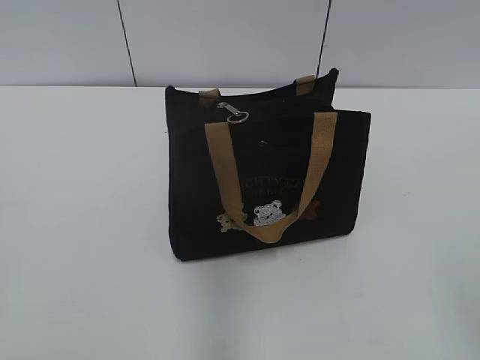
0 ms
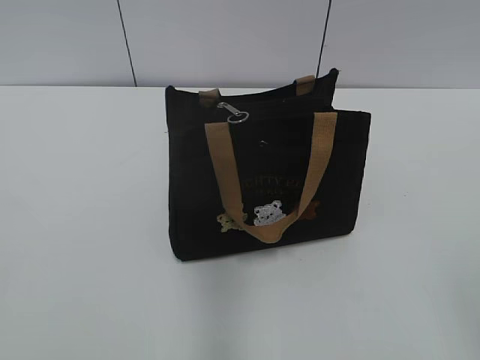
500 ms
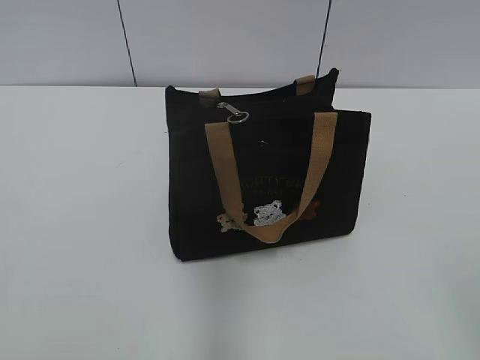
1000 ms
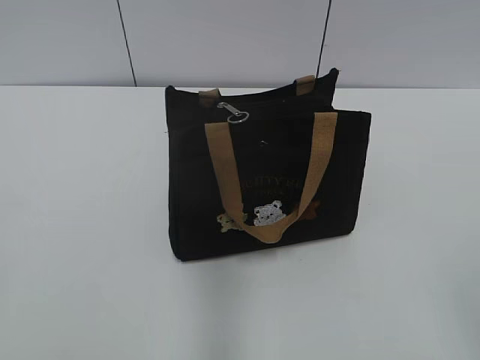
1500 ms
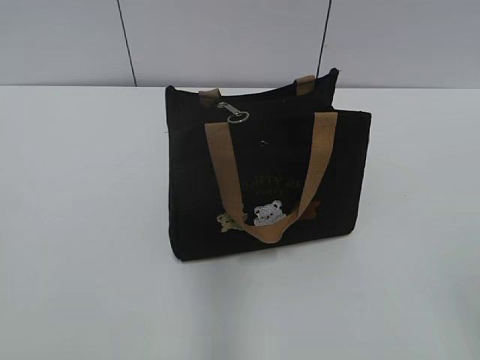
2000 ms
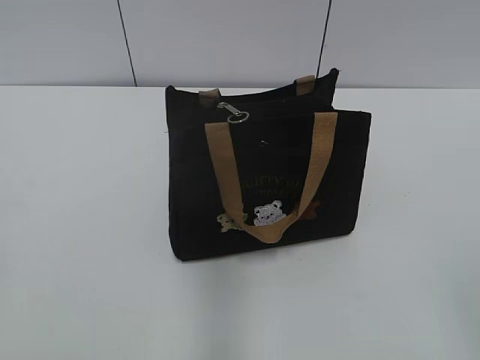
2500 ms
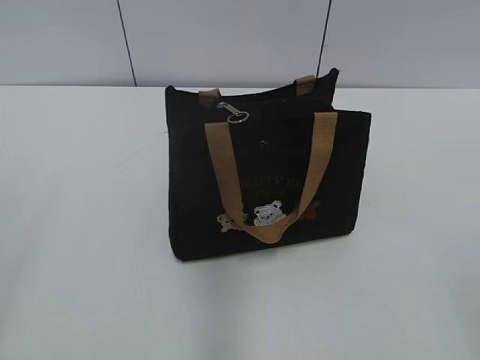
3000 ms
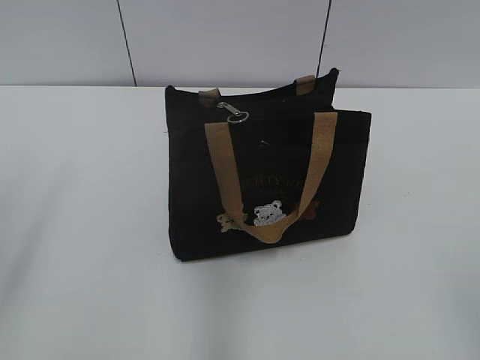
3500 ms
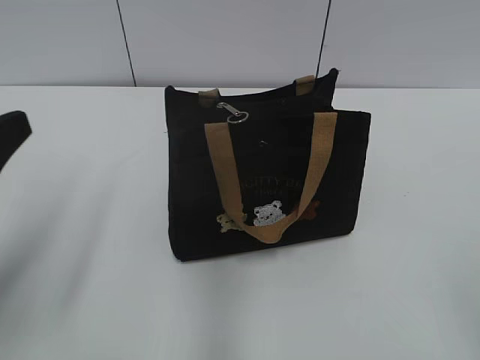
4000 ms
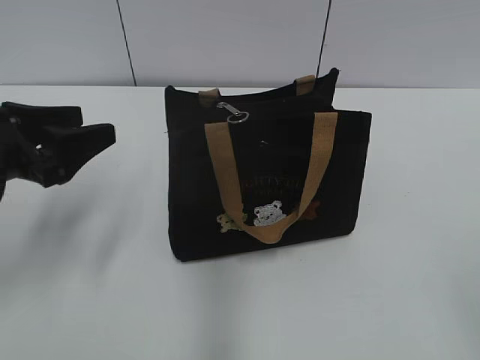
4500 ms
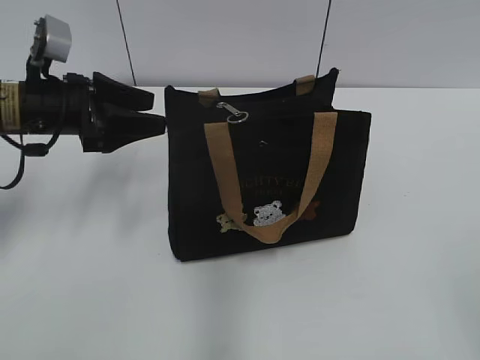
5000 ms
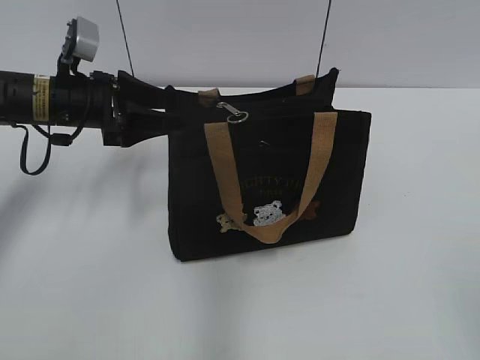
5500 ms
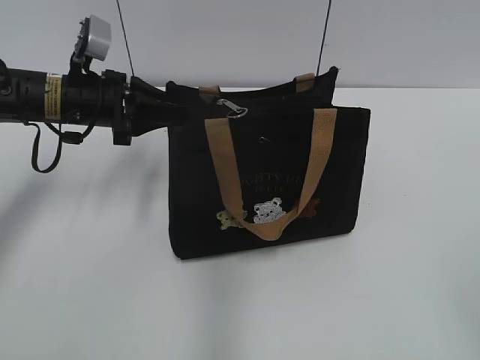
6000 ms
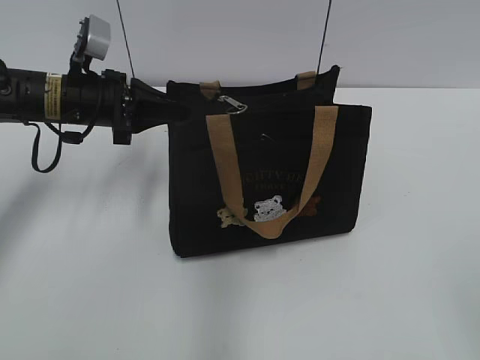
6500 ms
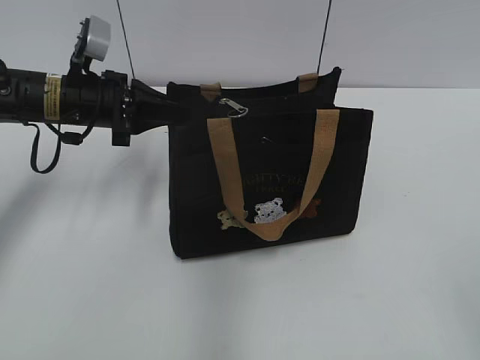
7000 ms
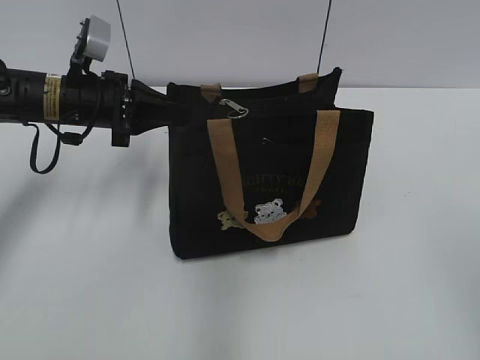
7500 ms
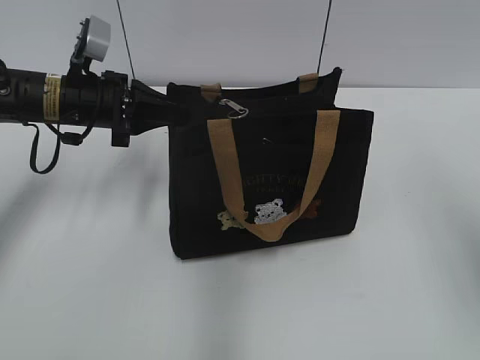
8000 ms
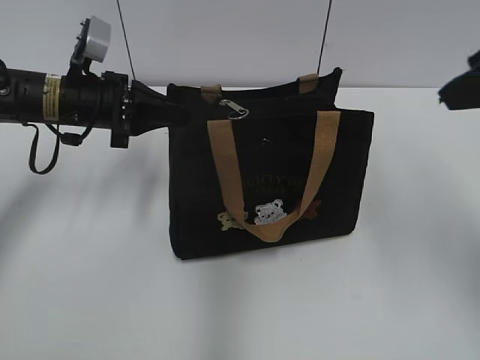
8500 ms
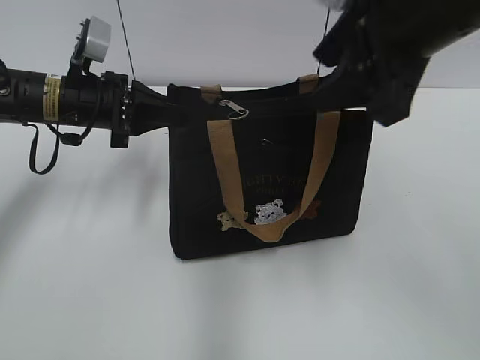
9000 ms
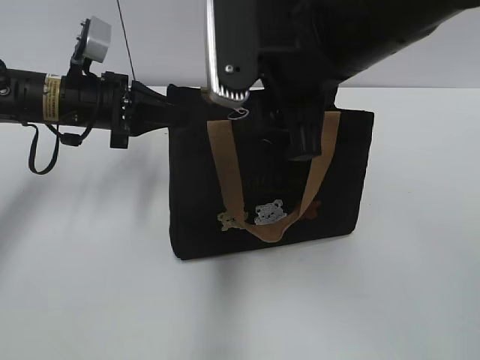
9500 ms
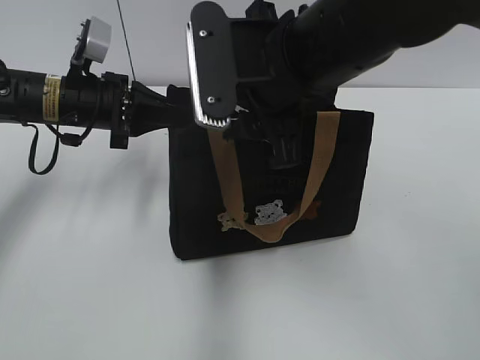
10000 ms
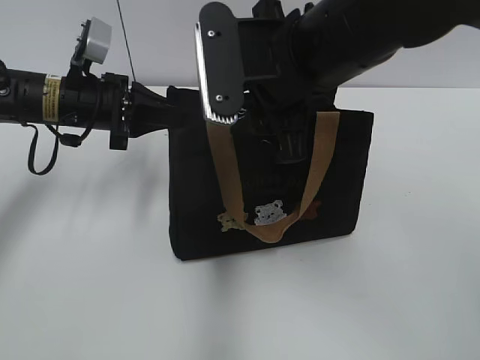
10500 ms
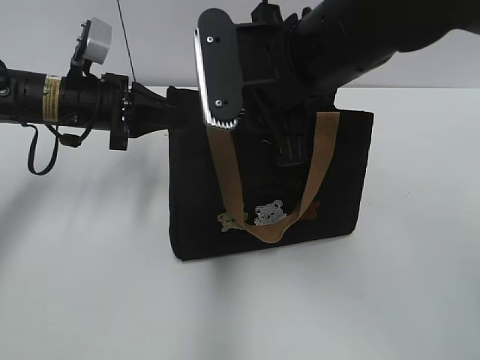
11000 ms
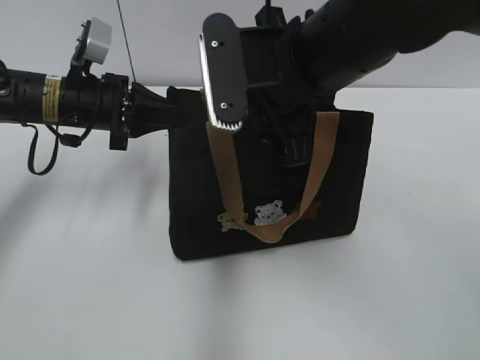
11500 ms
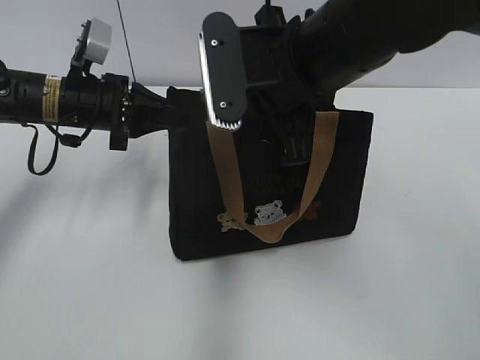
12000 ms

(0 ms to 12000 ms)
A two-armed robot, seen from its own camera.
2000 ms - 4000 ms: The left gripper heads forward and to the right, covering approximately 15 cm, and opens.
4000 ms - 6000 ms: The left gripper is displaced forward by roughly 25 cm, and closes up.
6000 ms - 8000 ms: The right gripper is displaced forward and upward by approximately 15 cm.
8000 ms - 10000 ms: The right gripper shifts approximately 25 cm to the left and forward.
10000 ms - 12000 ms: The right gripper closes its fingers.

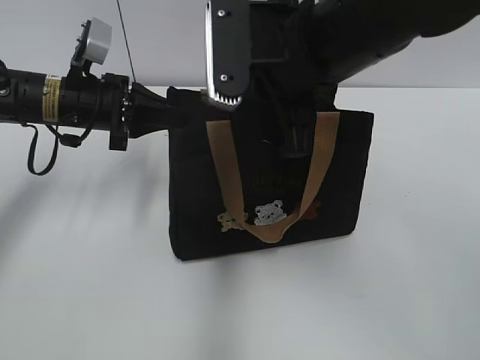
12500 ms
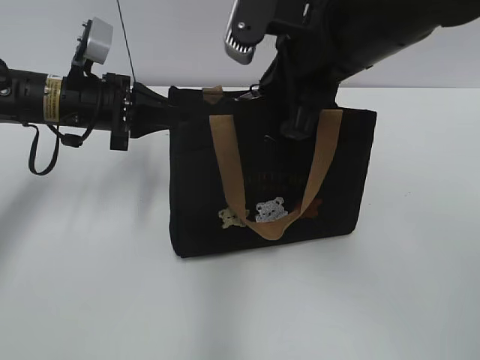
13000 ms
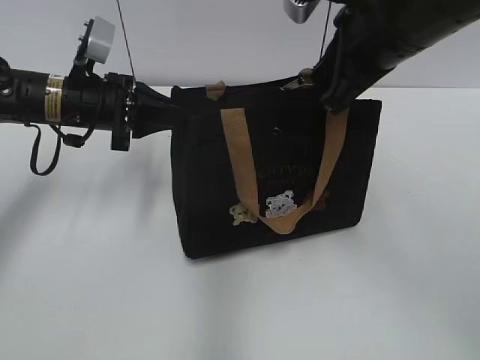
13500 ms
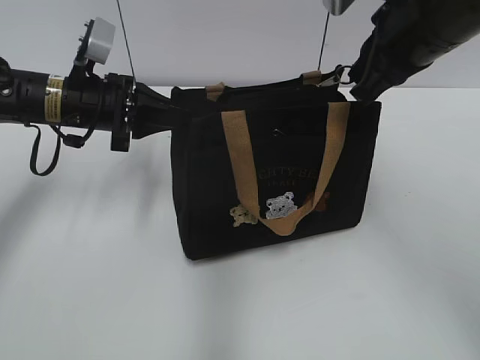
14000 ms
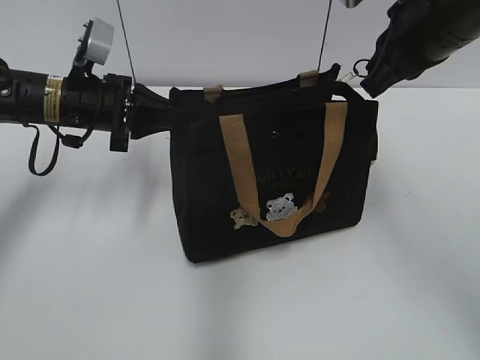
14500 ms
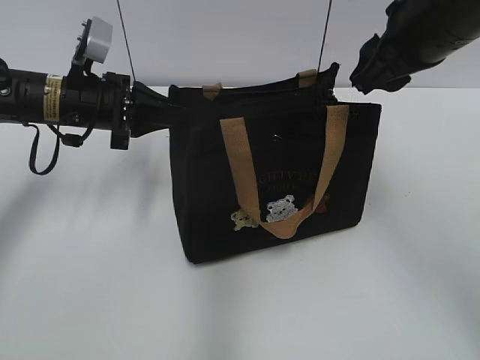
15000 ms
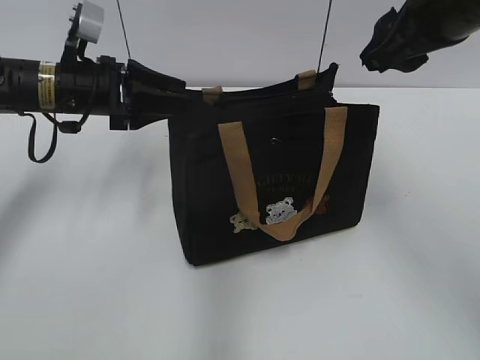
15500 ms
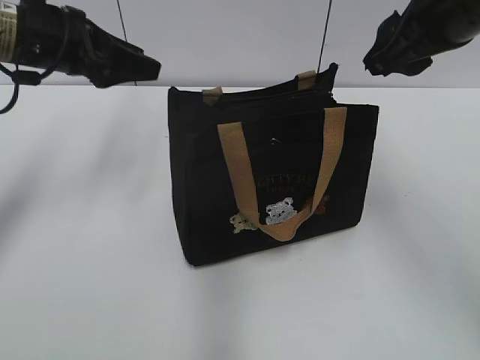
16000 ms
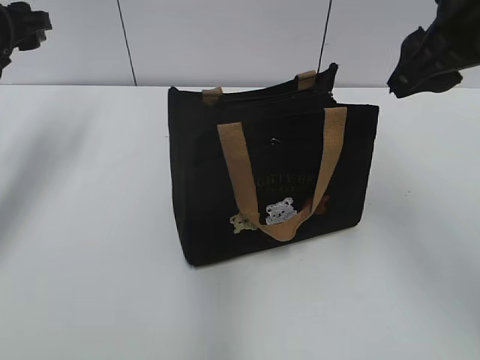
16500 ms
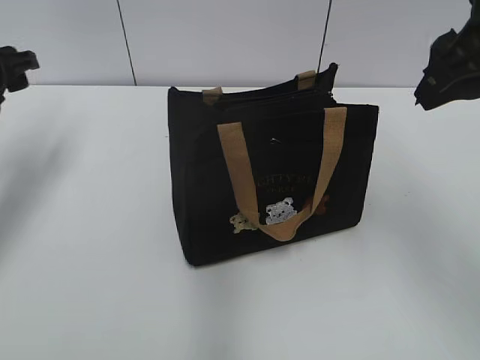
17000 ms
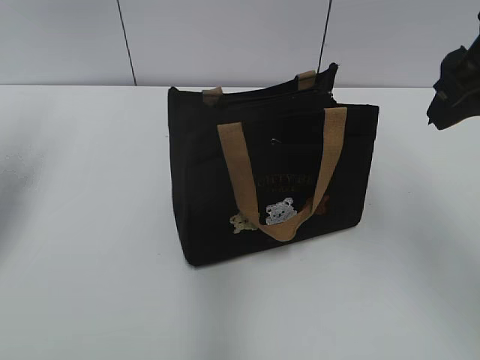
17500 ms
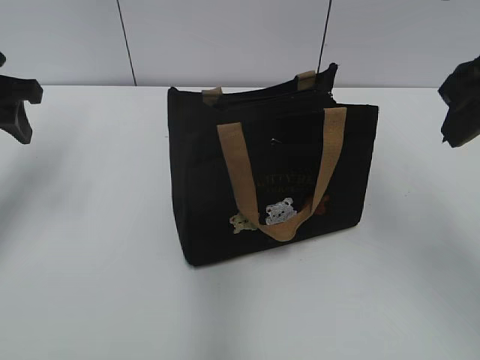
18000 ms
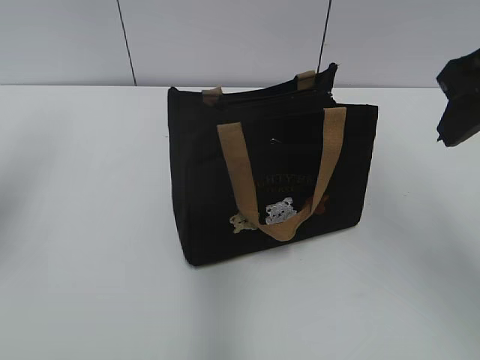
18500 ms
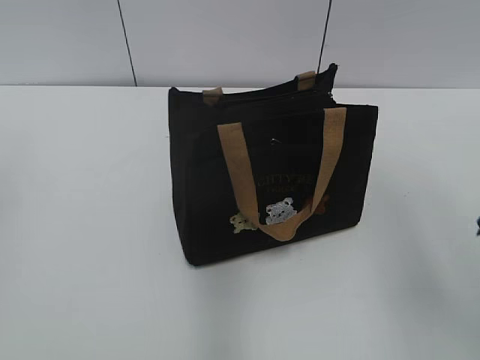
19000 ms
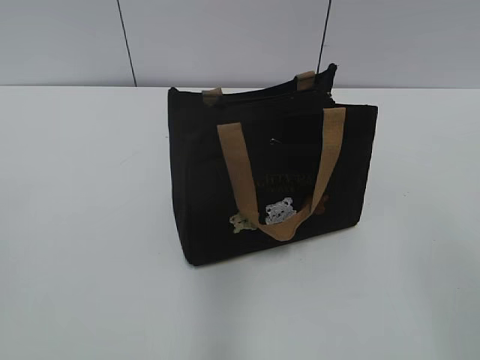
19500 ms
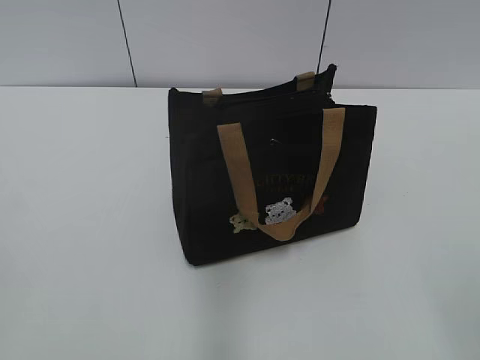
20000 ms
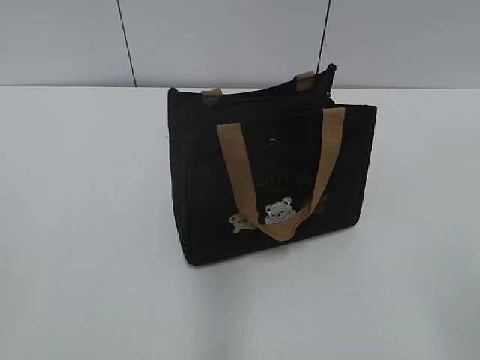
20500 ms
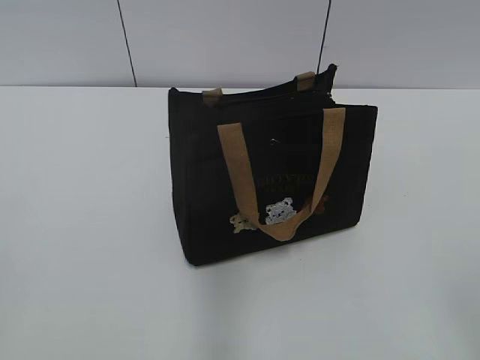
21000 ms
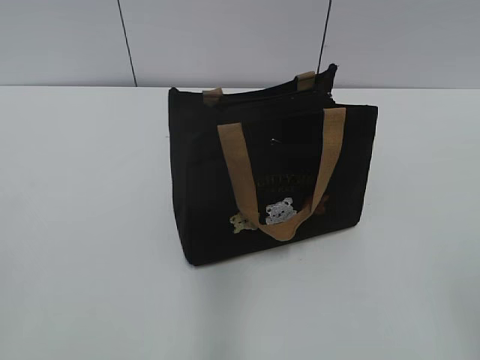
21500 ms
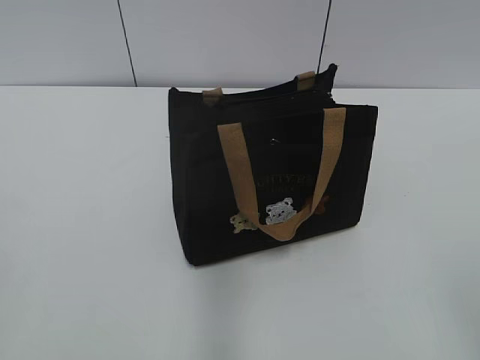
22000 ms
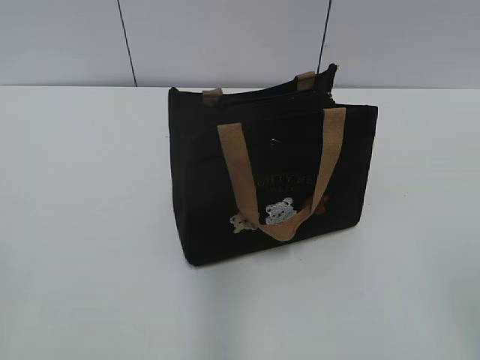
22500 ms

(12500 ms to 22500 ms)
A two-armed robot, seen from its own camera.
Step, 12500 ms - 14500 ms: Pull open the zipper with your right hand.
Step, 15000 ms - 15500 ms: Hold the bag with your left hand.
12500 ms - 14500 ms: The right gripper shifts about 10 cm to the right.
14500 ms - 16500 ms: The right gripper changes place by roughly 5 cm, and opens its fingers; the left gripper is displaced to the left and upward by approximately 10 cm, and opens.
16500 ms - 18500 ms: The left gripper goes roughly 15 cm backward and upward.
18500 ms - 20500 ms: The right gripper moves backward, some 25 cm.

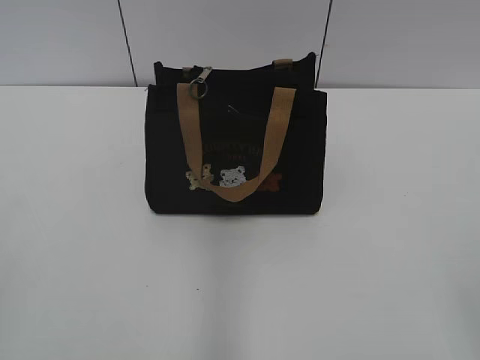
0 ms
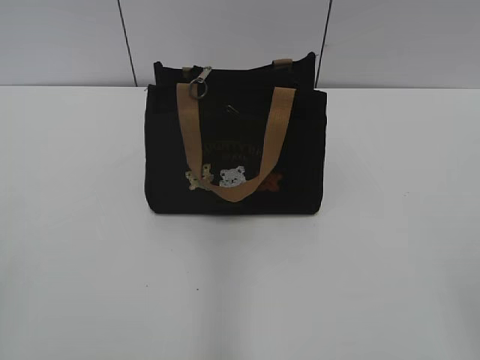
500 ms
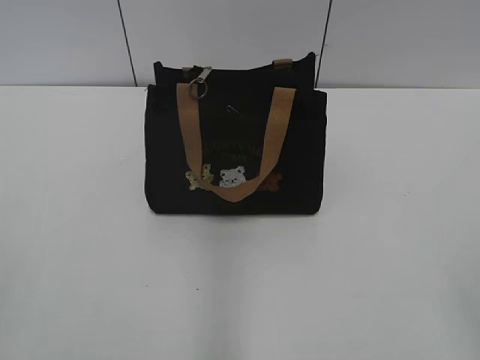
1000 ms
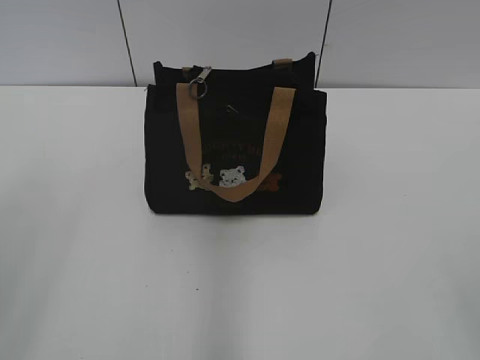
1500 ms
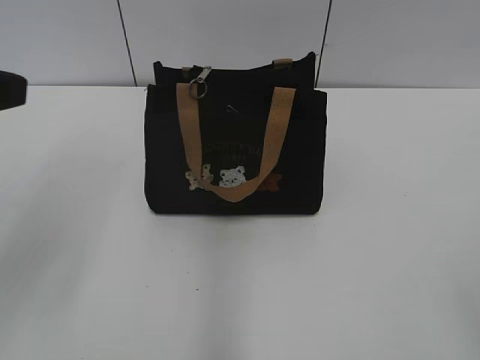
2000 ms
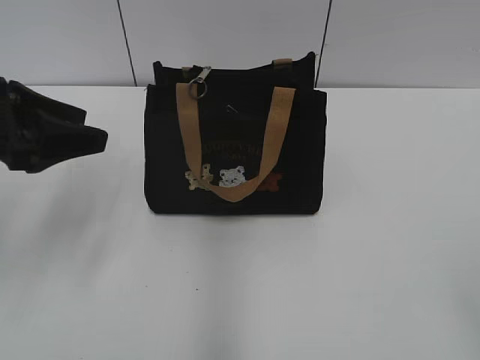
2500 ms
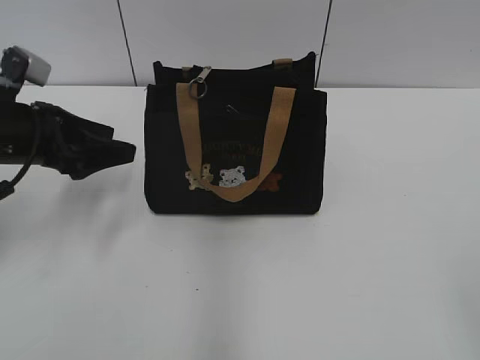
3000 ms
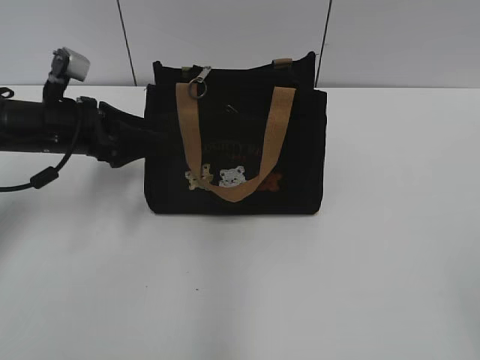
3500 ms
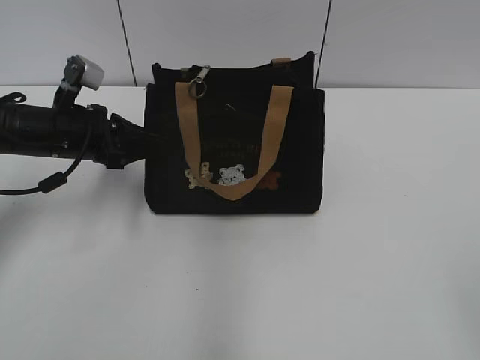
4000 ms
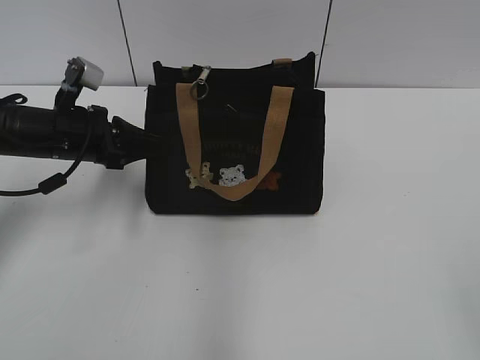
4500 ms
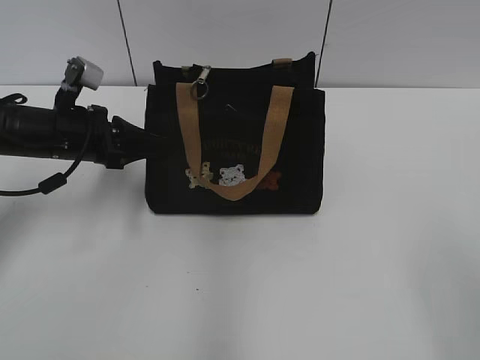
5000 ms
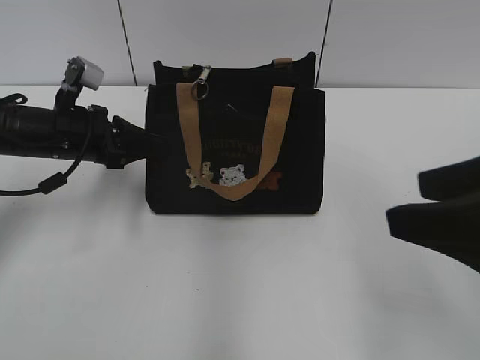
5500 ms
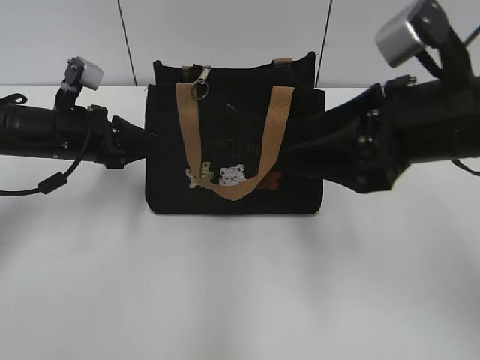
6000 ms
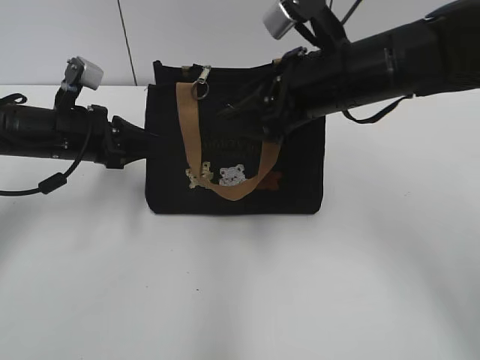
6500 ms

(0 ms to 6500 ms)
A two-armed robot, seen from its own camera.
2000 ms - 4500 ms: The left gripper is displaced downward and forward by roughly 25 cm, and closes up.
4500 ms - 6500 ms: The right gripper heads forward and to the left, covering some 40 cm.
